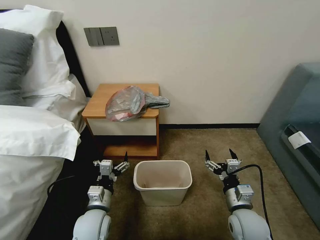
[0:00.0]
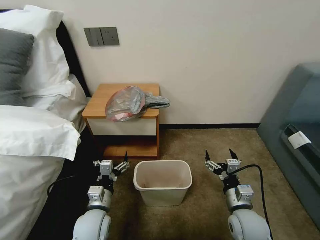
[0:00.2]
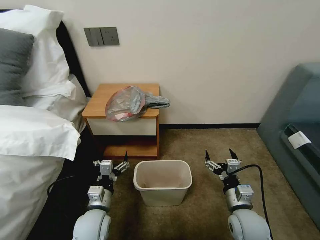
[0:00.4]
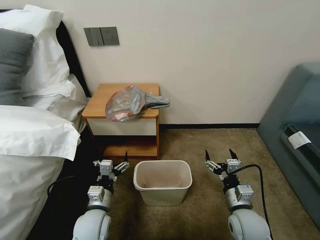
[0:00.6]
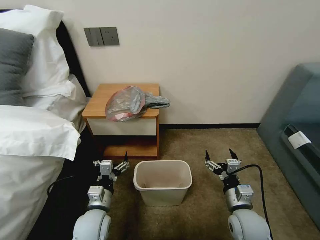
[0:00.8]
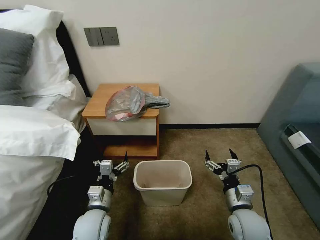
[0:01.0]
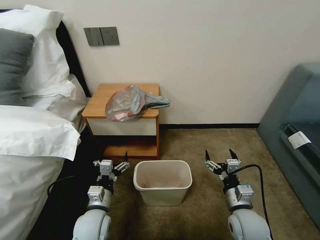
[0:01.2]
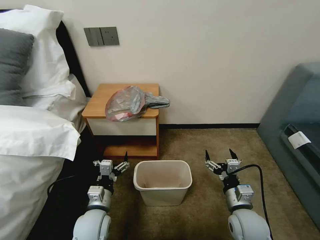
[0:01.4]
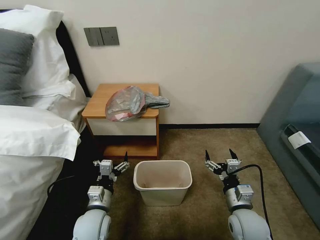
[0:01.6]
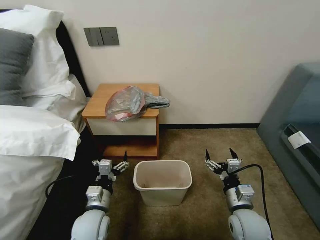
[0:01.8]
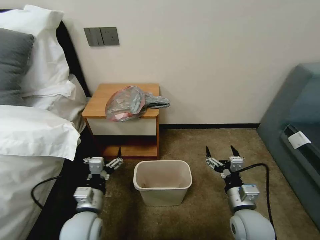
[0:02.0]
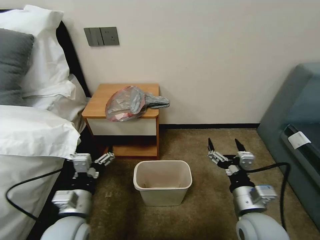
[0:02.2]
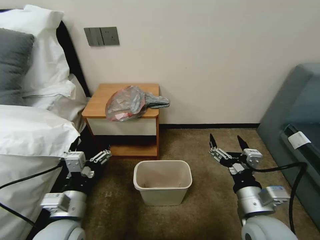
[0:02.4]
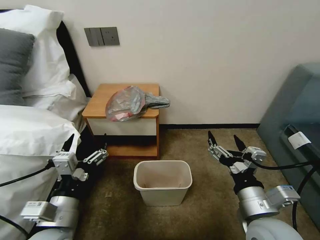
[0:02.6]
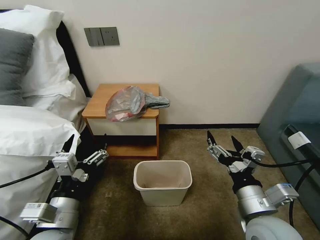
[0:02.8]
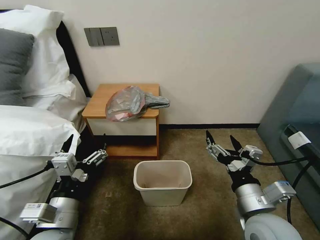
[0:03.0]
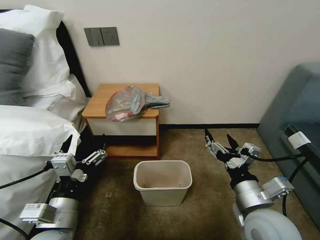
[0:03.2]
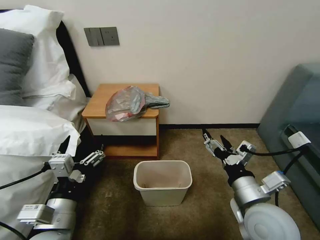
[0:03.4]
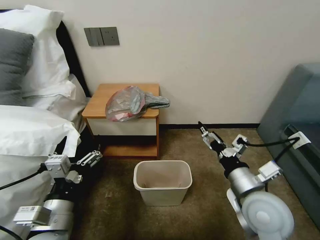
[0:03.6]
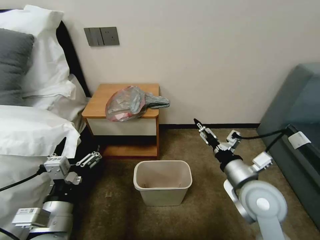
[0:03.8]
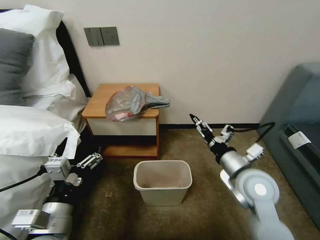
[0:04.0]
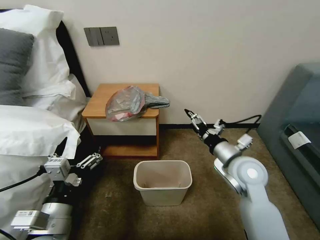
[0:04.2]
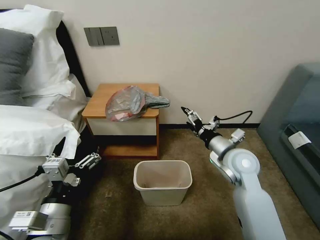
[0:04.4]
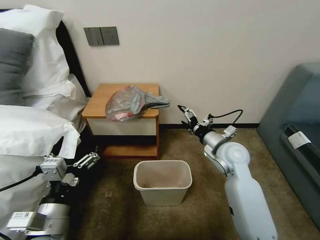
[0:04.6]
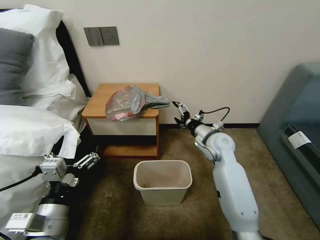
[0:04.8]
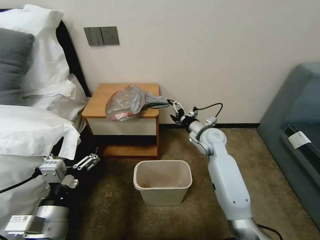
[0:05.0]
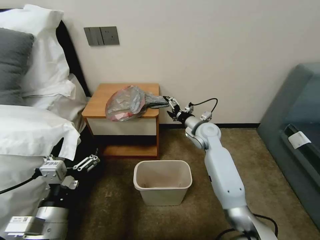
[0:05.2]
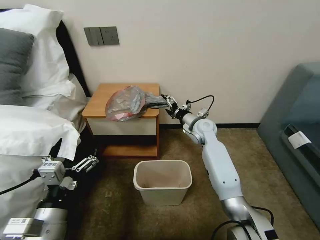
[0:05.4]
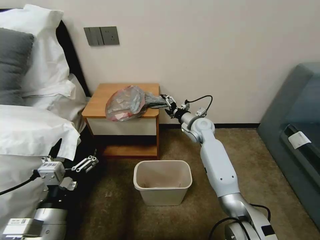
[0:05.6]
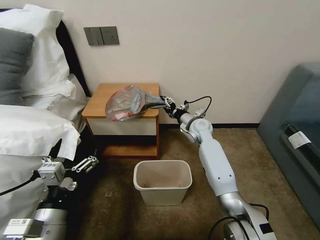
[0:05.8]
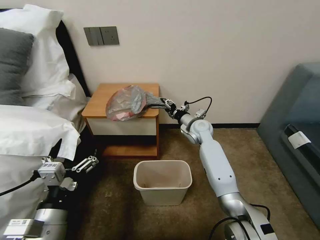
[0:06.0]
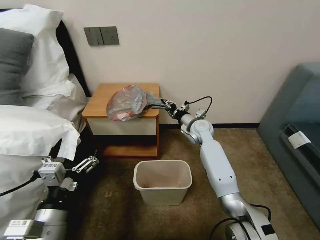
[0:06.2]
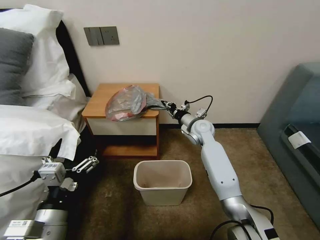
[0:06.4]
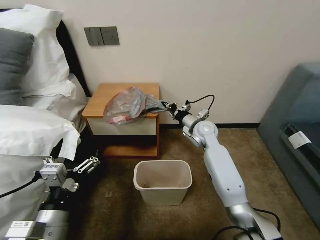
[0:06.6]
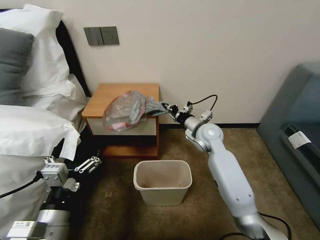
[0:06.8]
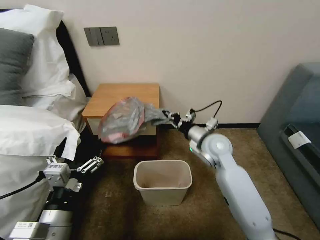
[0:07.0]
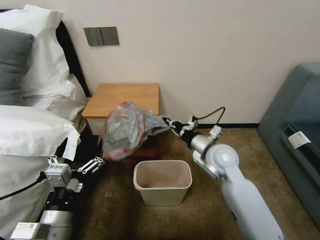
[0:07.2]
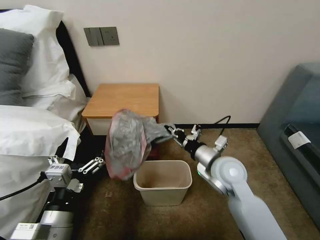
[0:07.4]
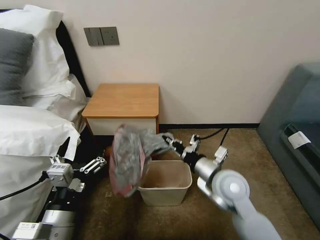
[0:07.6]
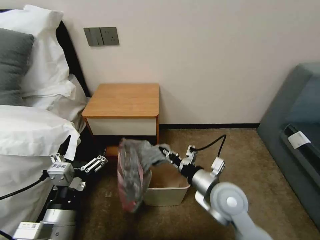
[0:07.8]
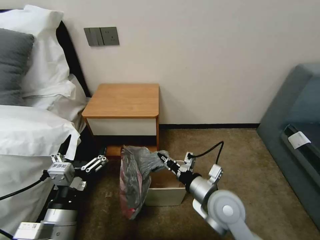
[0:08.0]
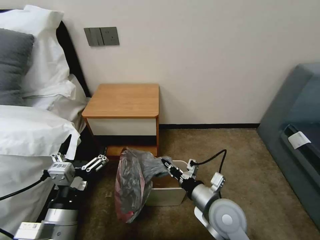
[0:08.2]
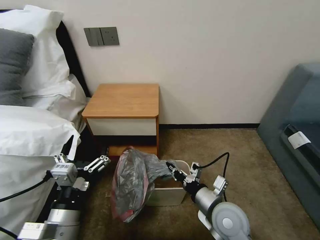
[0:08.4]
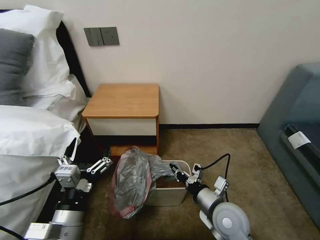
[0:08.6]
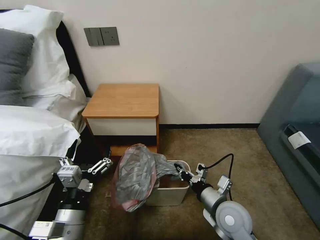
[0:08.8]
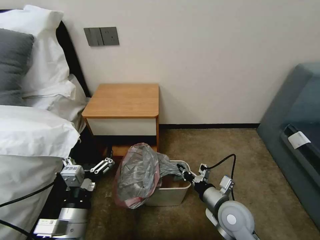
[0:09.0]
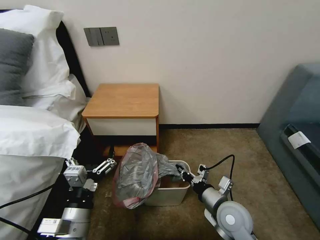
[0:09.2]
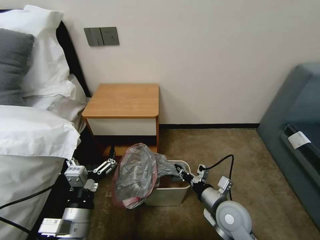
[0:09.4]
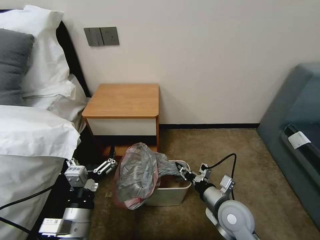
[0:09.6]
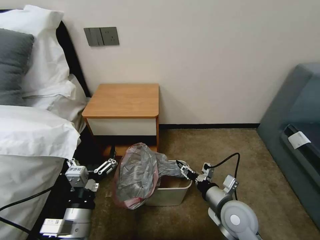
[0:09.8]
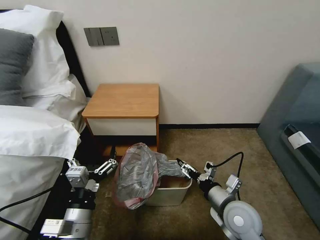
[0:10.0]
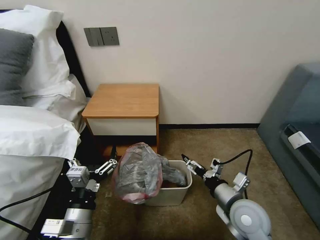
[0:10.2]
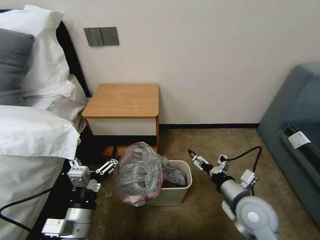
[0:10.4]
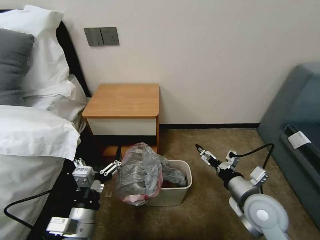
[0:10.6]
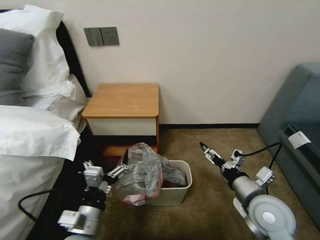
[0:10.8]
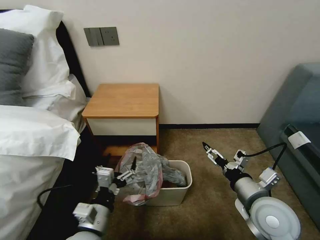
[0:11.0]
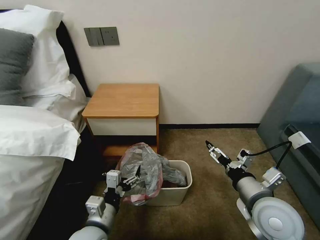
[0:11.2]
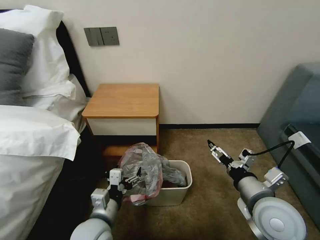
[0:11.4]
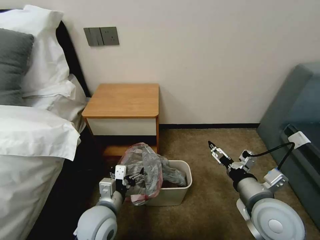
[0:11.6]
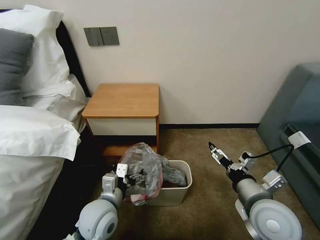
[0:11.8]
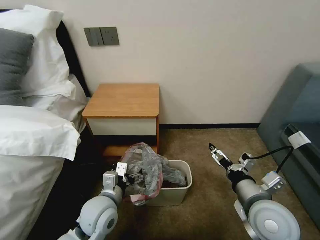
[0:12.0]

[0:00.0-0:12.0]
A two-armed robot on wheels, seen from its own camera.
Task of the whole recording: Pick up the garbage bag from the table and place it over the trash can.
0:01.6 to 0:03.0: The left gripper is displaced upward and backward by roughly 15 cm, while the right gripper shifts approximately 15 cm upward.
0:03.0 to 0:04.4: The right gripper shifts about 15 cm forward.
0:04.4 to 0:06.0: The right gripper is displaced forward by some 20 cm, and closes.
0:06.0 to 0:07.6: The right gripper shifts roughly 25 cm backward, and closes its fingers.
0:07.6 to 0:09.0: The right gripper moves downward and backward, about 10 cm.
0:09.0 to 0:10.4: The right gripper moves some 5 cm, and opens.
0:10.4 to 0:12.0: The left gripper travels forward by some 10 cm. Meanwhile the right gripper shifts by about 5 cm.

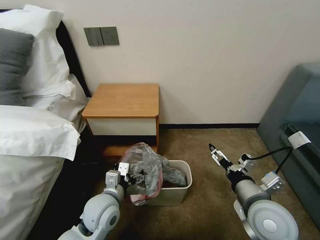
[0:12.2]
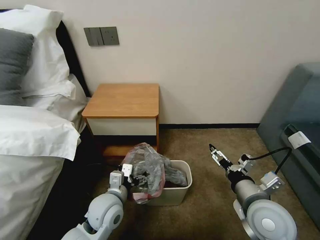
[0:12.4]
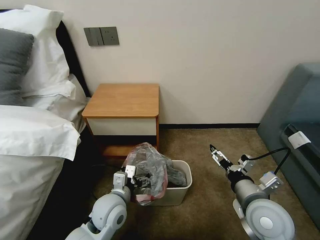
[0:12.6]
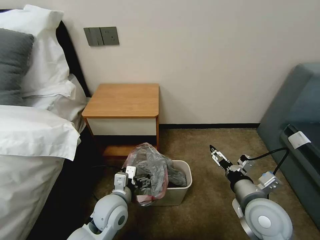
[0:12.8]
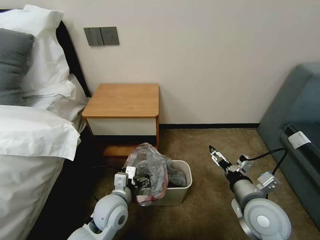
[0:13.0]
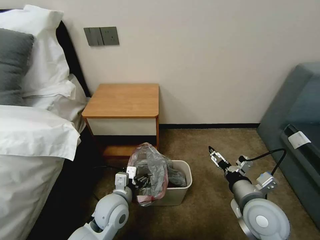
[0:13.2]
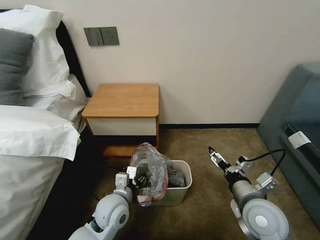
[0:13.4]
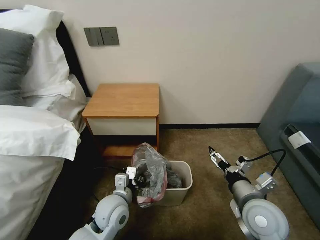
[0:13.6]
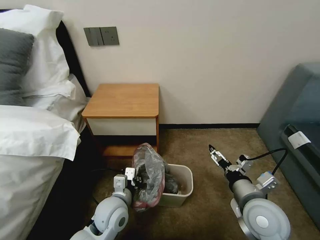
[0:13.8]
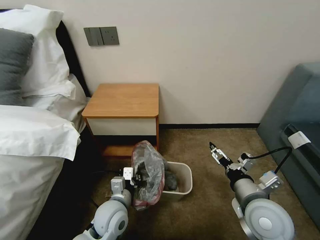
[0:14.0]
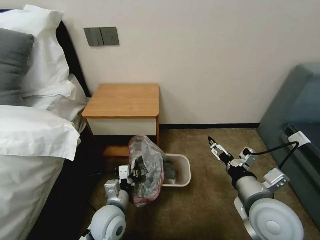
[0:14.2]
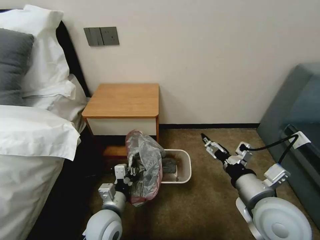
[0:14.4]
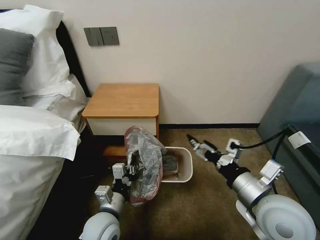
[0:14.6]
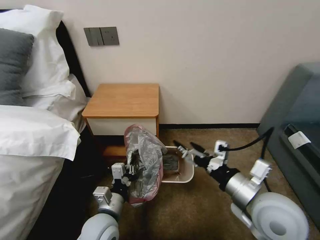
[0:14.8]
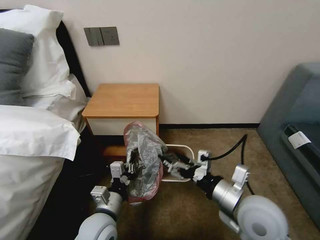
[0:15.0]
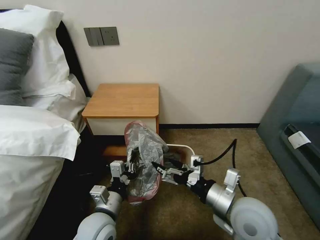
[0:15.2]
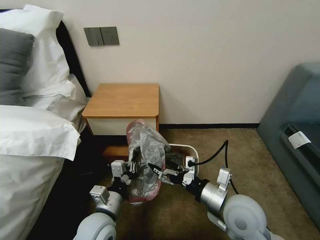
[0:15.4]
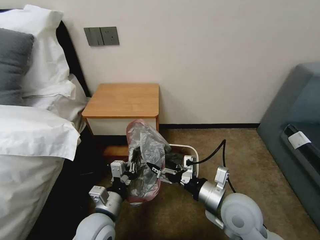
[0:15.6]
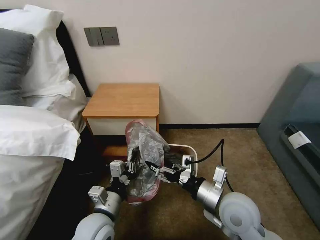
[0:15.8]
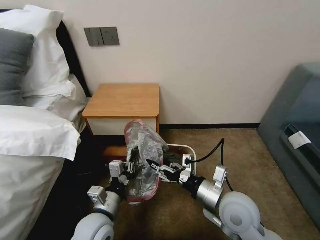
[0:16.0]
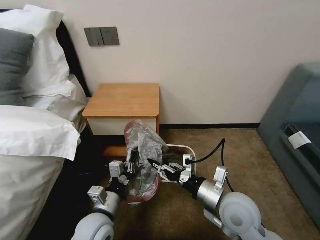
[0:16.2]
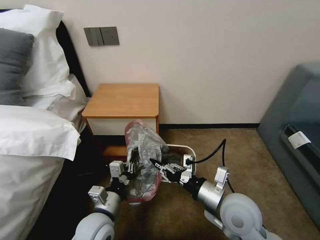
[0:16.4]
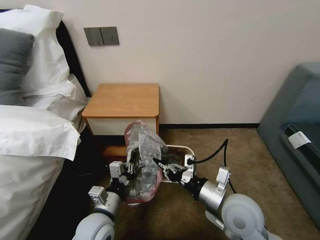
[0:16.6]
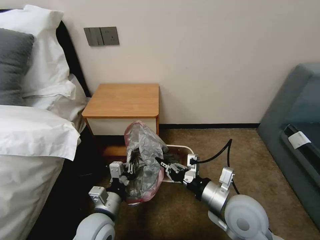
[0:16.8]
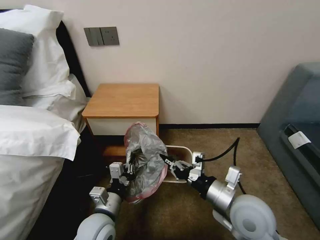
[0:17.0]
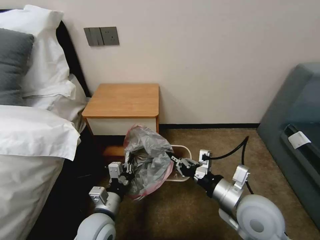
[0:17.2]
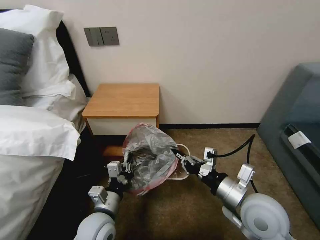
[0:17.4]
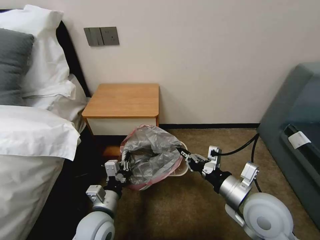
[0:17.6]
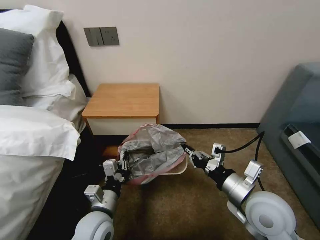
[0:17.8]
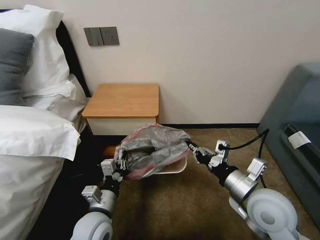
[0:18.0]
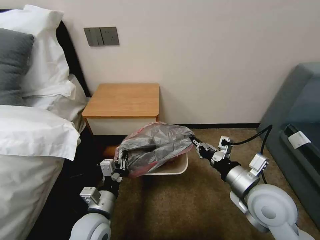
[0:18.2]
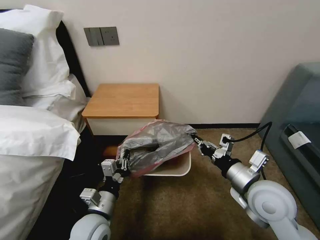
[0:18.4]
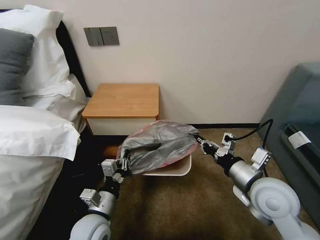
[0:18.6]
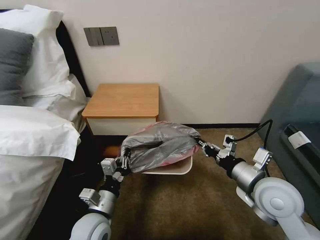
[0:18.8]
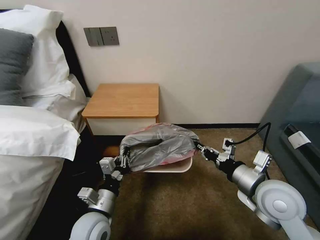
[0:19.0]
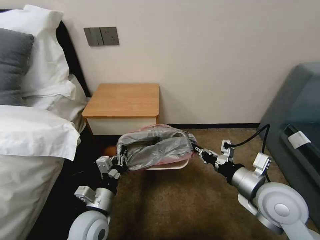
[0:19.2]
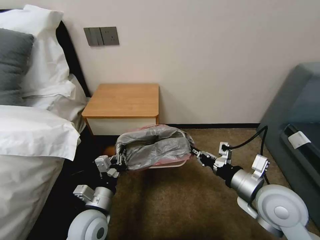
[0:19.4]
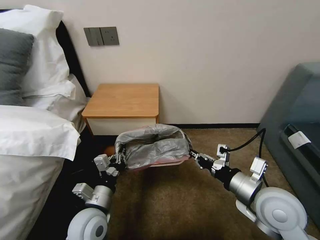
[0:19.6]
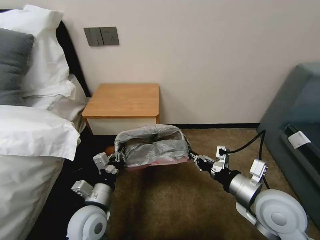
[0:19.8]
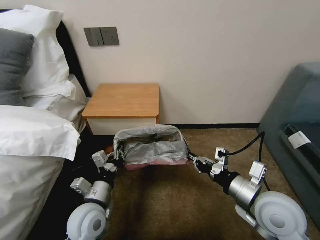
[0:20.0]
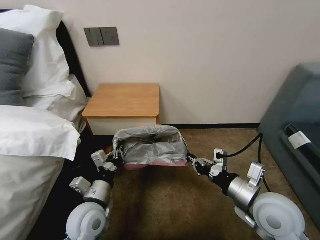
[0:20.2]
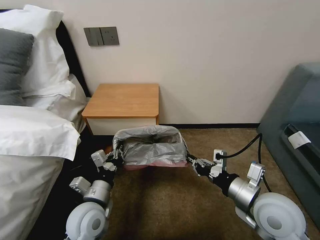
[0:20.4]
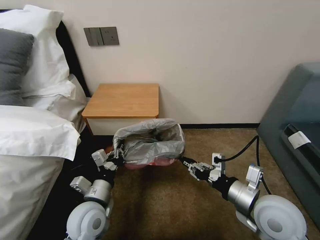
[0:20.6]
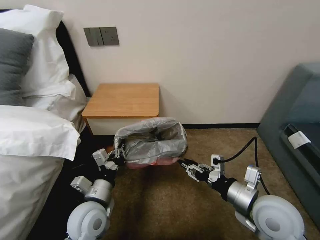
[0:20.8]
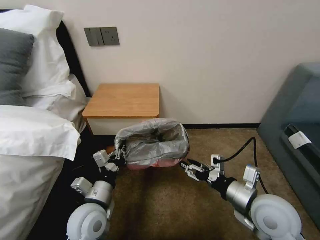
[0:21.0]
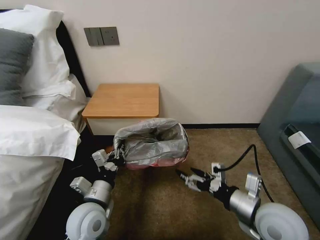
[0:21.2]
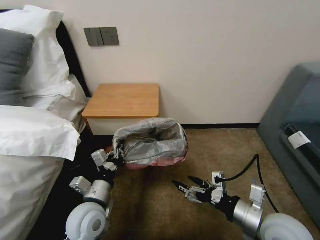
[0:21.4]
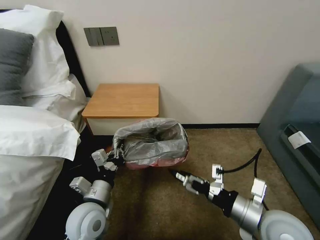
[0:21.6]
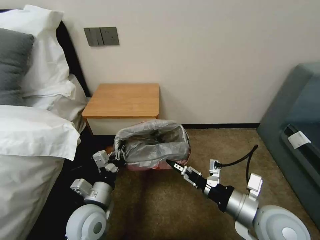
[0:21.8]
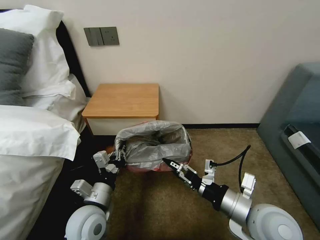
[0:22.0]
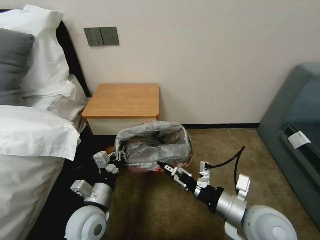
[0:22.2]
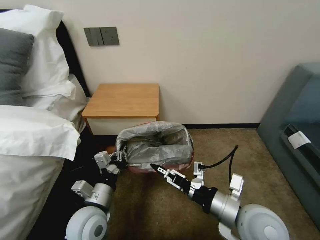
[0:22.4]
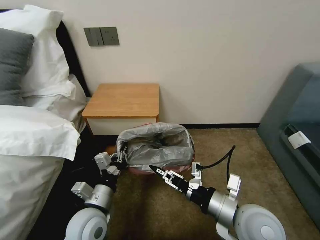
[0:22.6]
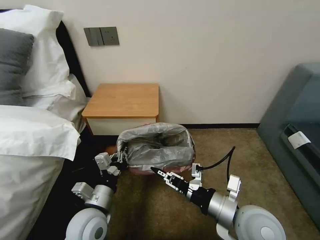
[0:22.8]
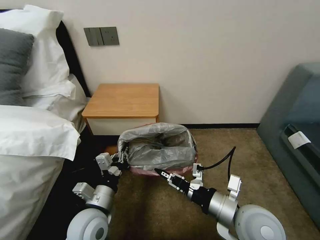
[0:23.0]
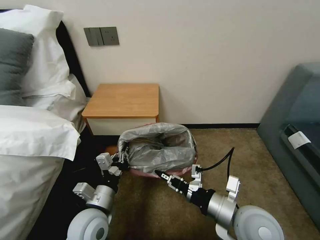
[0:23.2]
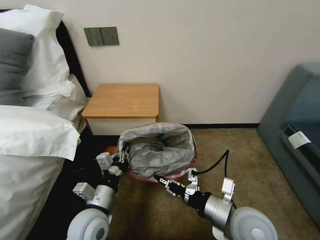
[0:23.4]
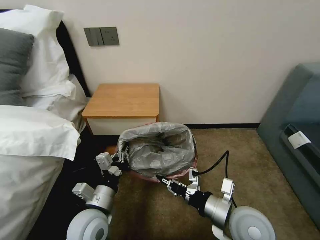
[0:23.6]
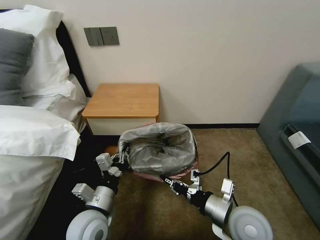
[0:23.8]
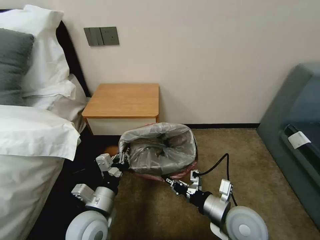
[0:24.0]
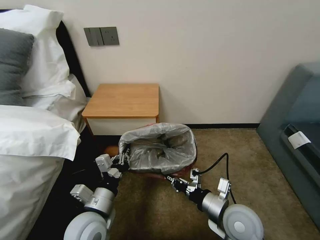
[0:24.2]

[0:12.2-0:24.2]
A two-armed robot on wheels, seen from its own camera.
Task of the whole recording: Pick up the garbage bag from the table and place it over the trash can.
0:12.2 to 0:13.8: The left gripper closes its fingers.
0:13.8 to 0:15.2: The left gripper shifts by some 5 cm.
0:15.2 to 0:16.6: The right gripper closes.
0:16.6 to 0:18.2: The right gripper travels to the right by roughly 5 cm.
0:18.2 to 0:19.8: The grippers stay close to where they were, moving slightly.
0:19.8 to 0:21.2: The right gripper opens its fingers.
0:21.2 to 0:22.6: The right gripper shifts approximately 5 cm to the left, and closes its fingers.
0:22.6 to 0:24.2: The right gripper travels downward by some 5 cm, and closes up.
